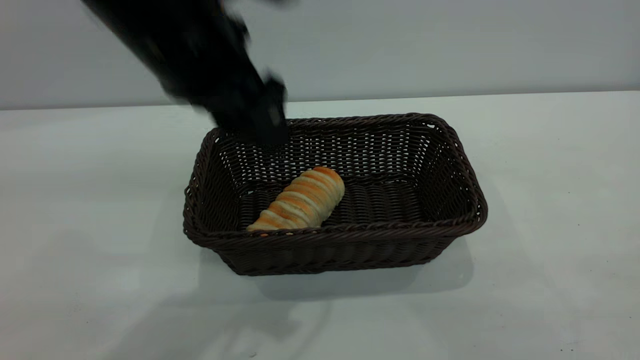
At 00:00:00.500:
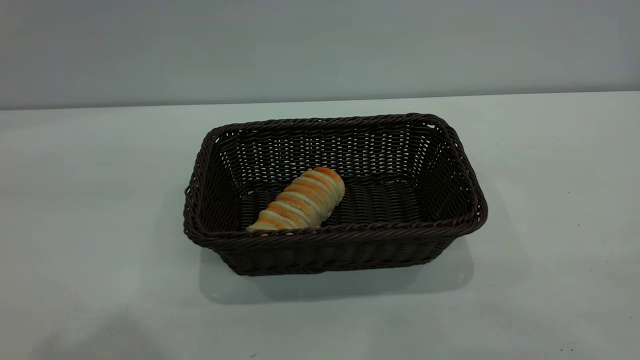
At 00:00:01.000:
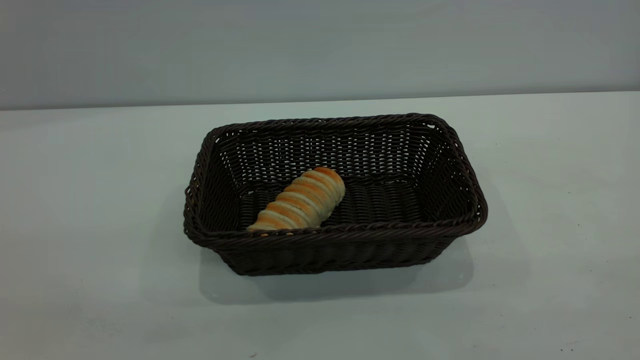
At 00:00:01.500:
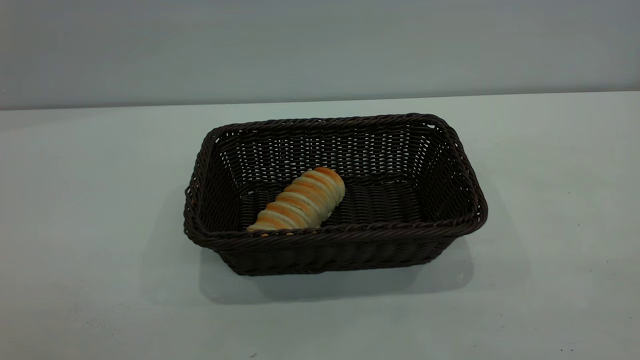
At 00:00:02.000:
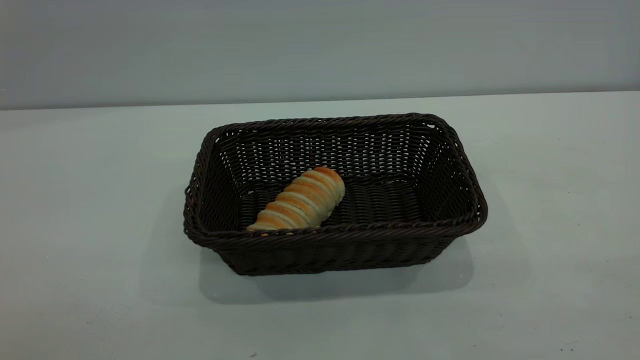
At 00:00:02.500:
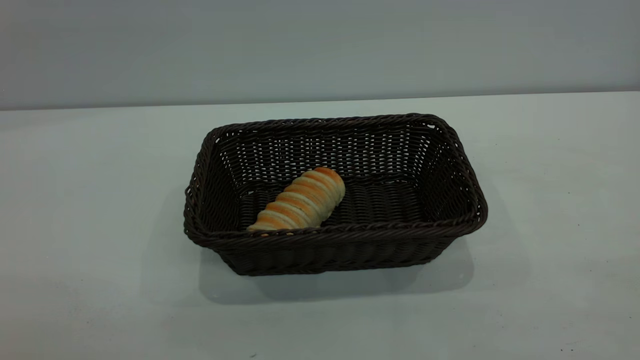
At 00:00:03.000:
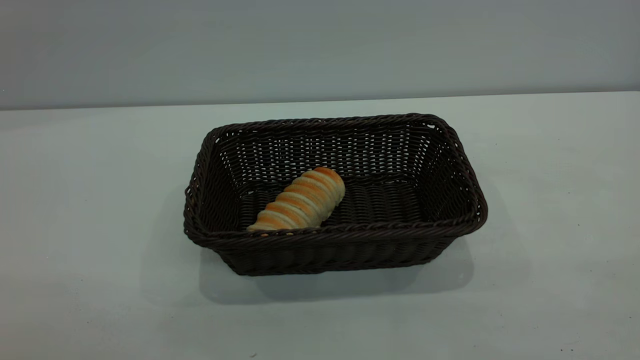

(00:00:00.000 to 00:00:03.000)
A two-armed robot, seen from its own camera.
Task of the whole recording: One hand grasps the black basket and places it in the middle of the table, while the other hand picks up the long bread and puts it into the black basket.
00:00:00.000 - 00:00:01.500: The left gripper is displaced backward and to the left by roughly 30 cm.
